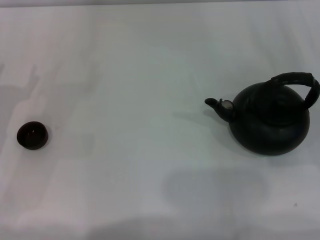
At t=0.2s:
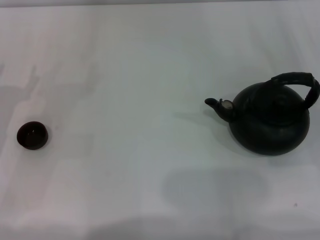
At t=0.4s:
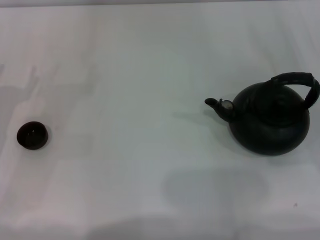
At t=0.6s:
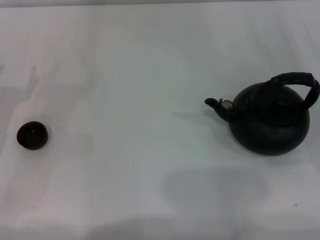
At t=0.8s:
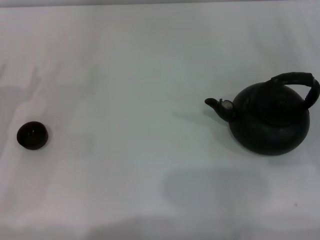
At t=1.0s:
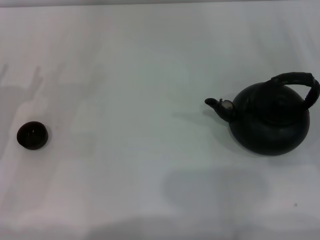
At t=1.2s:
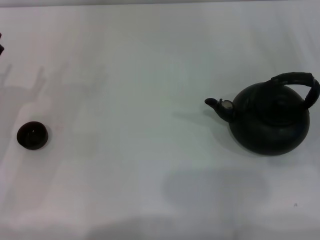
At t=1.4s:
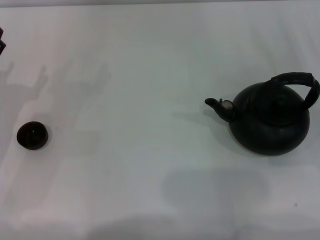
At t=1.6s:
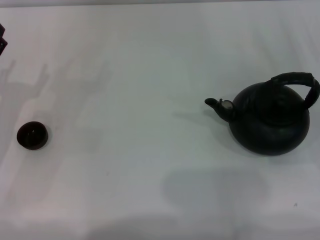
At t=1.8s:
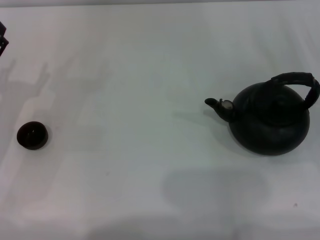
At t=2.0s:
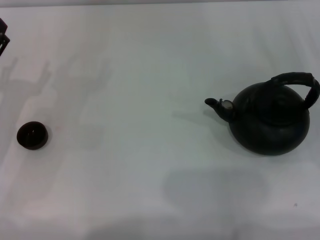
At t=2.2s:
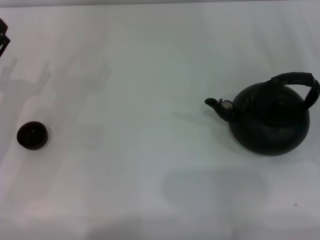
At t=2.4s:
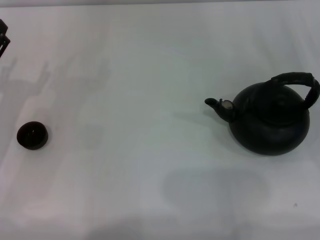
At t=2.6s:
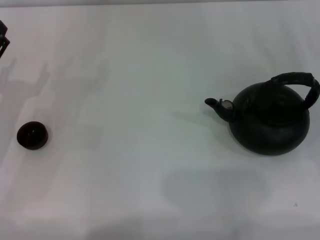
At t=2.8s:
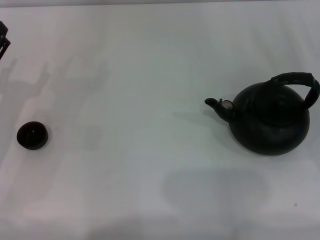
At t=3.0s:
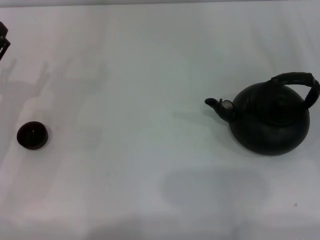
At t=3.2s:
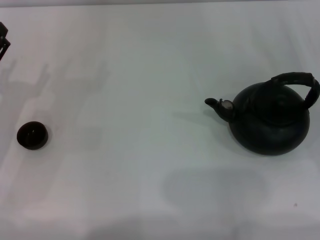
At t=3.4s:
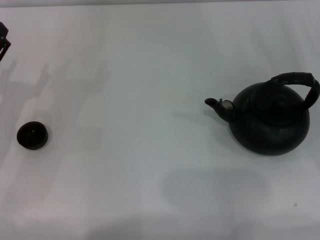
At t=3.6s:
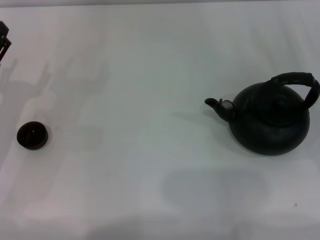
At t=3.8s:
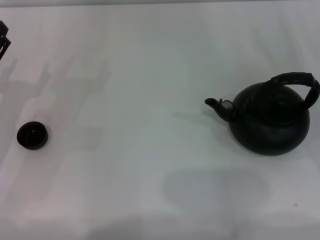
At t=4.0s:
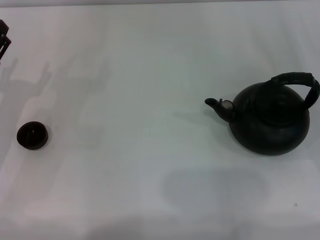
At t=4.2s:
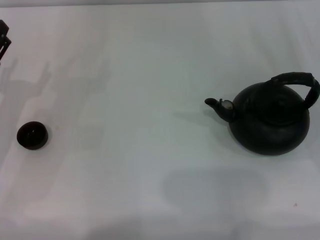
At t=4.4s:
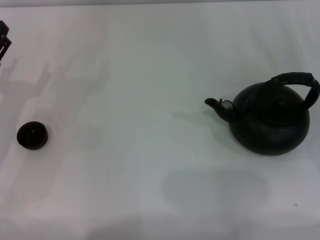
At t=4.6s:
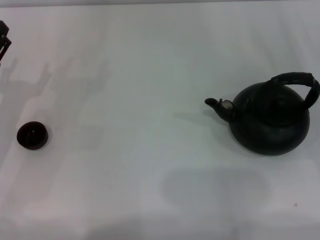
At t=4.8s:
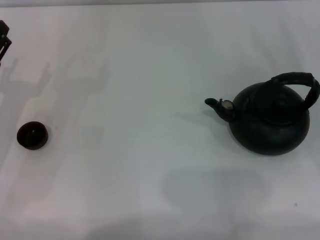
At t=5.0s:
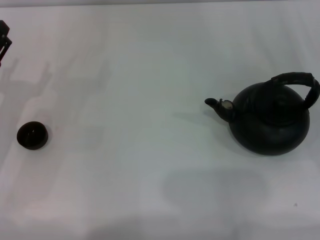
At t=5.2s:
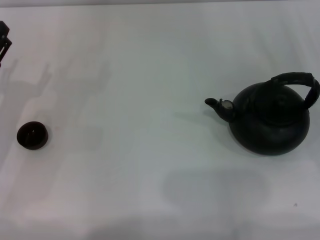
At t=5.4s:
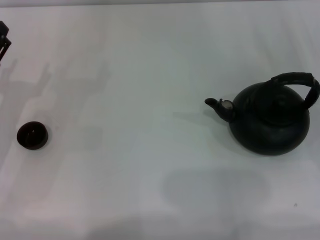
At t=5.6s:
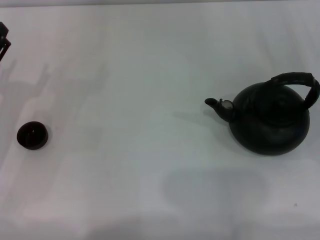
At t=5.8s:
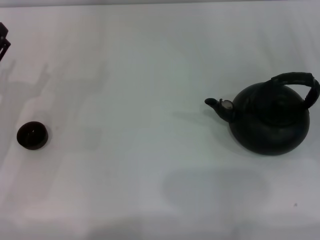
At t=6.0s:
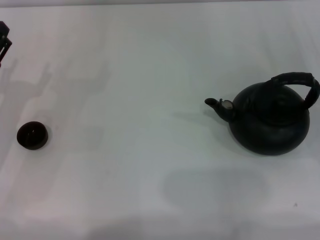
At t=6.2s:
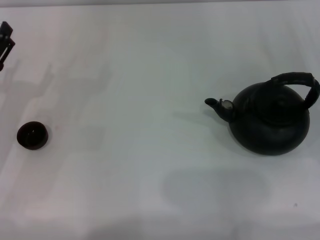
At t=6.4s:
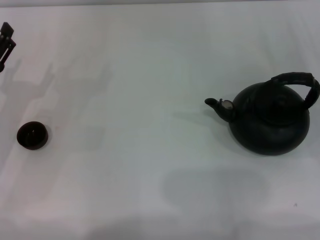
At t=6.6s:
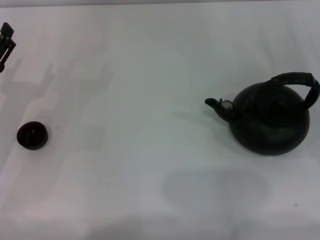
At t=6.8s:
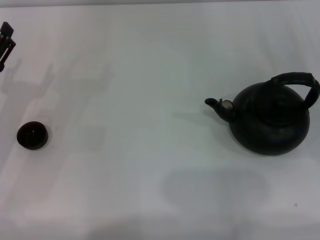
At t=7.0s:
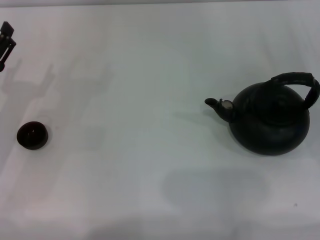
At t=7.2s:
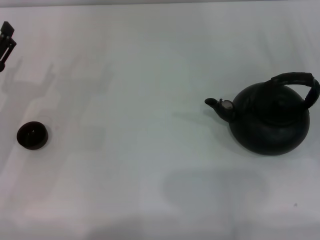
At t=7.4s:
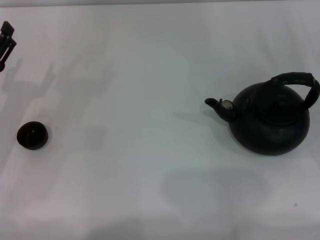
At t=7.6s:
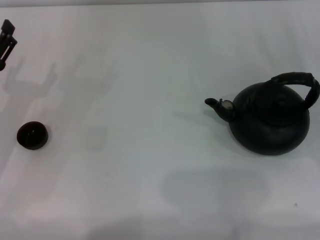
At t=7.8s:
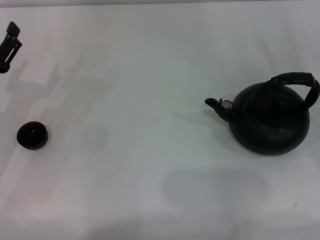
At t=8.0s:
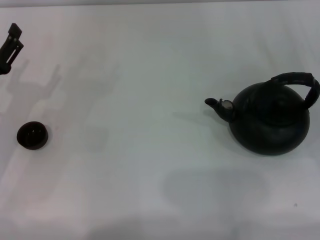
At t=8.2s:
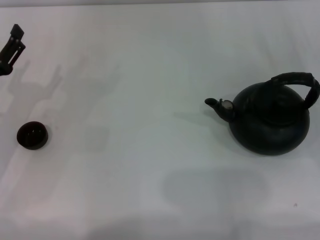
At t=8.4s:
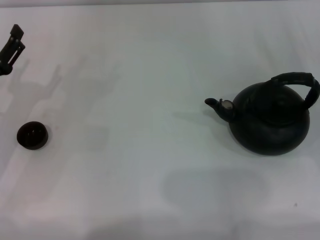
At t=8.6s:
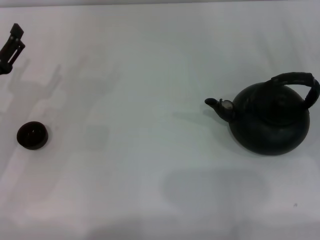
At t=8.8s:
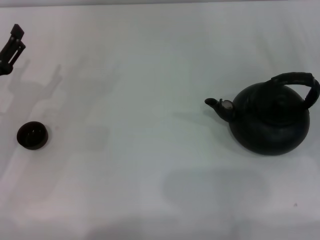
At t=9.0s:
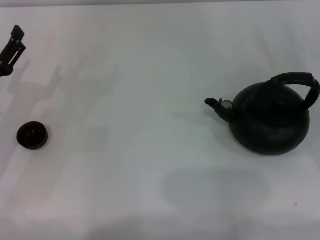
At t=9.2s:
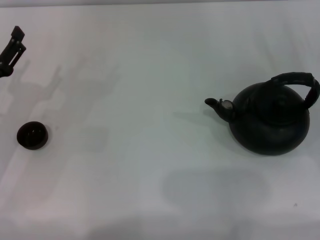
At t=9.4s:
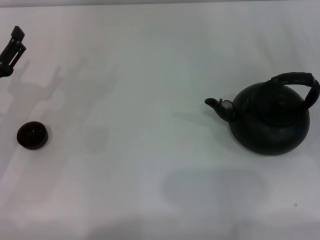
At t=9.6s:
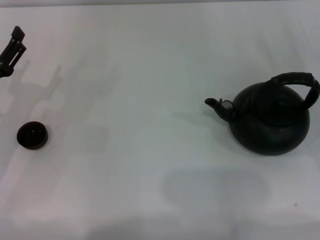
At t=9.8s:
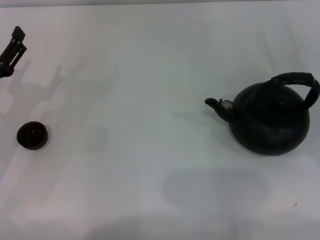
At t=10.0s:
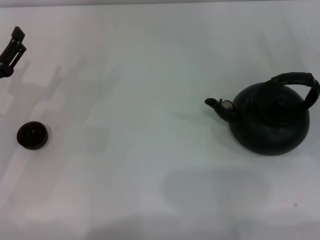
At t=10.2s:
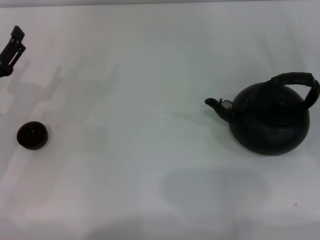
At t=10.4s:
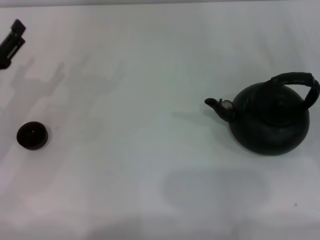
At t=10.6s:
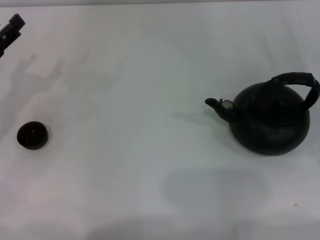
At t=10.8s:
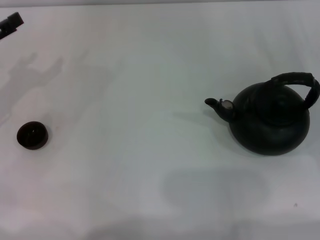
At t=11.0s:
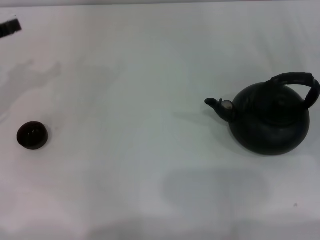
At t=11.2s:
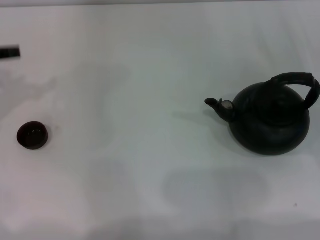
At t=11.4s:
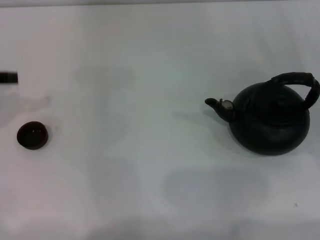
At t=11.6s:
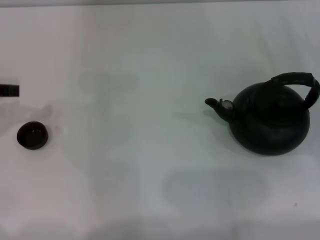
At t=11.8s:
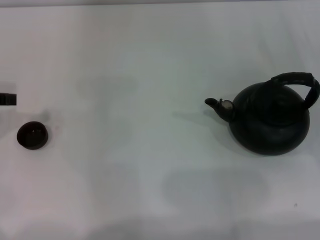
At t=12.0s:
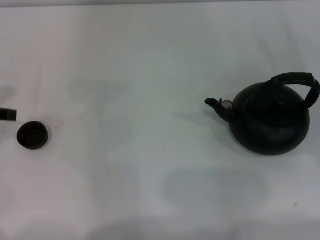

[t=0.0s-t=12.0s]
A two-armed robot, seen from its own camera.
Task of the whole recording: Grasp the handle of the teapot with one hand and pour tea into the teacup.
t=0.0s to t=1.6s: Neither gripper changes place.
t=1.6s to t=9.0s: The two grippers keep their place.
t=10.4s to t=12.0s: The left gripper moves upward, some 15 cm.

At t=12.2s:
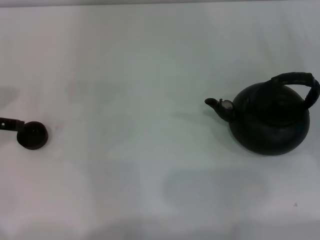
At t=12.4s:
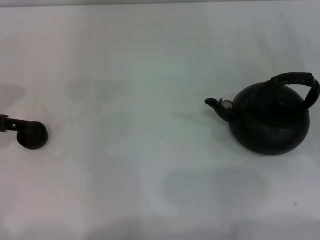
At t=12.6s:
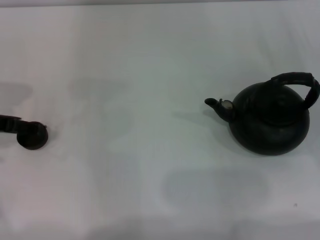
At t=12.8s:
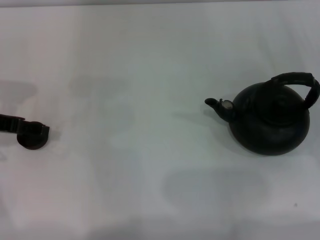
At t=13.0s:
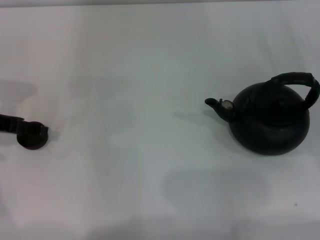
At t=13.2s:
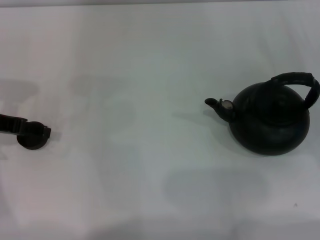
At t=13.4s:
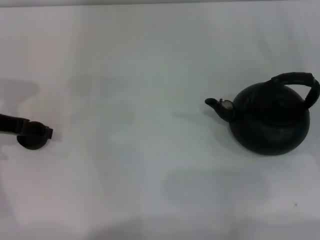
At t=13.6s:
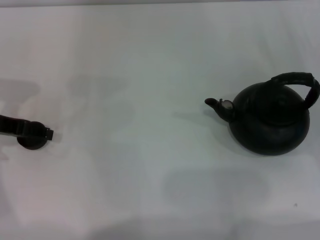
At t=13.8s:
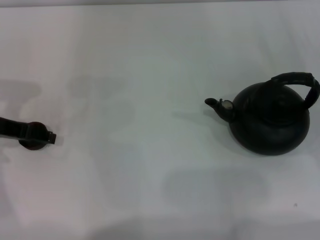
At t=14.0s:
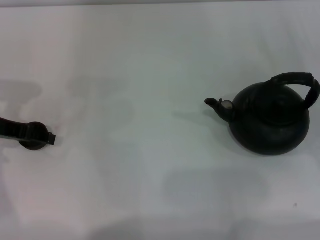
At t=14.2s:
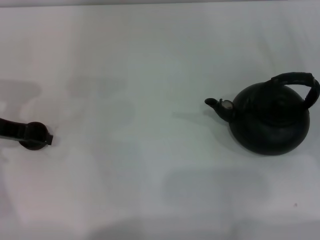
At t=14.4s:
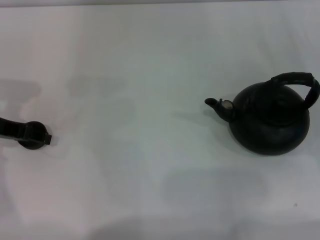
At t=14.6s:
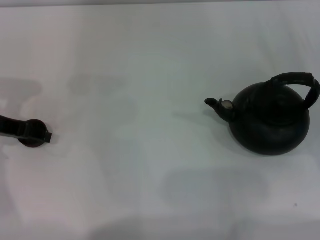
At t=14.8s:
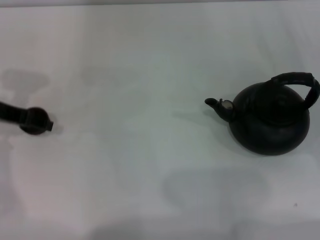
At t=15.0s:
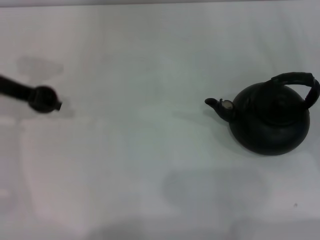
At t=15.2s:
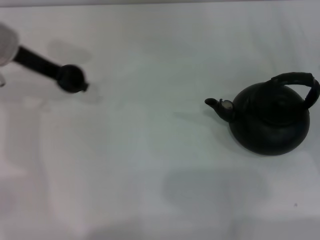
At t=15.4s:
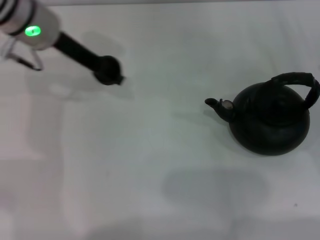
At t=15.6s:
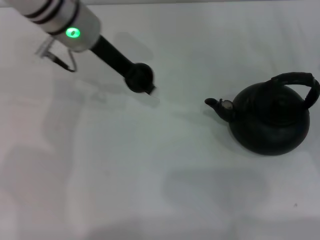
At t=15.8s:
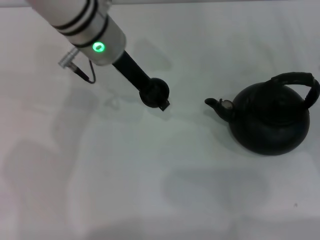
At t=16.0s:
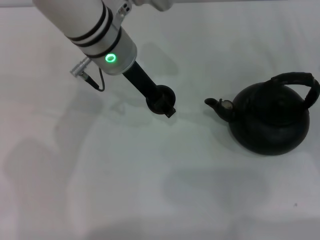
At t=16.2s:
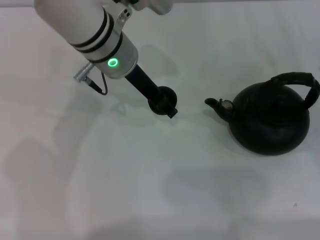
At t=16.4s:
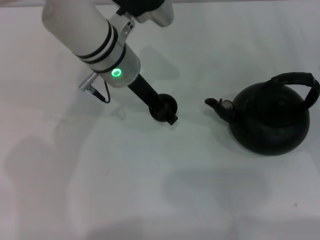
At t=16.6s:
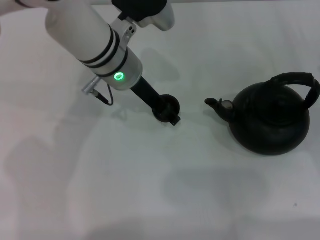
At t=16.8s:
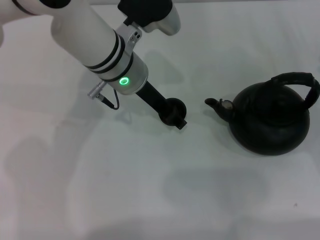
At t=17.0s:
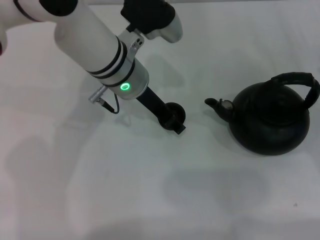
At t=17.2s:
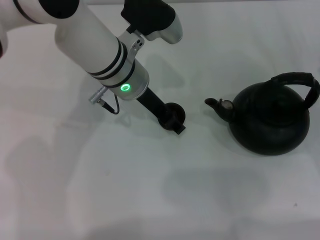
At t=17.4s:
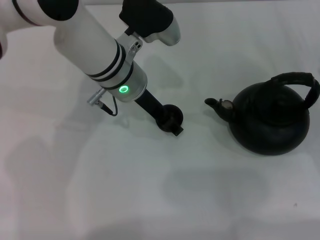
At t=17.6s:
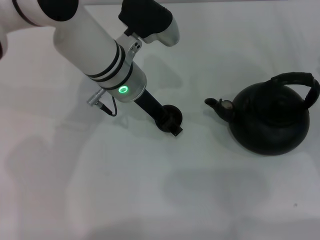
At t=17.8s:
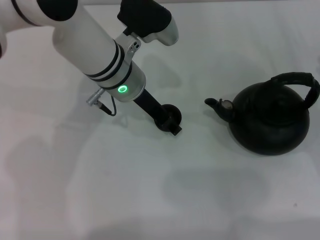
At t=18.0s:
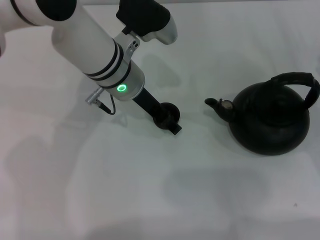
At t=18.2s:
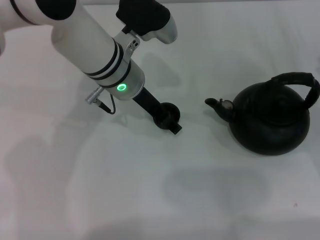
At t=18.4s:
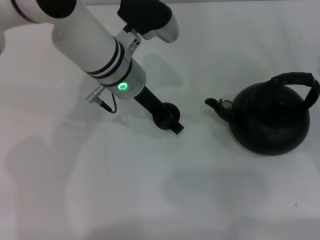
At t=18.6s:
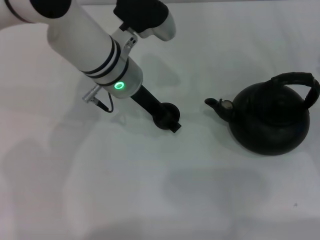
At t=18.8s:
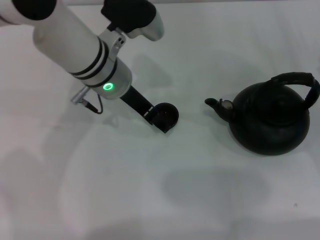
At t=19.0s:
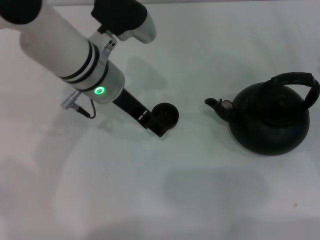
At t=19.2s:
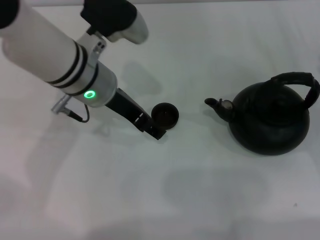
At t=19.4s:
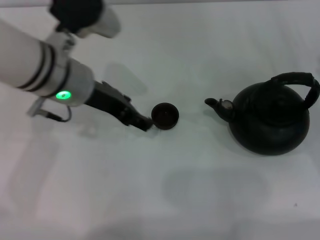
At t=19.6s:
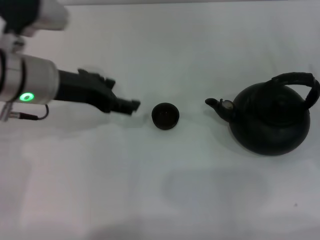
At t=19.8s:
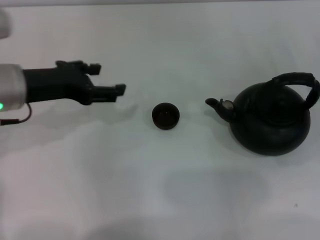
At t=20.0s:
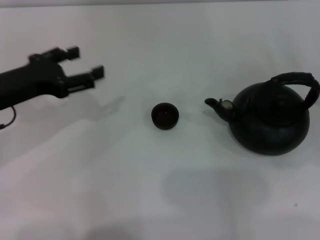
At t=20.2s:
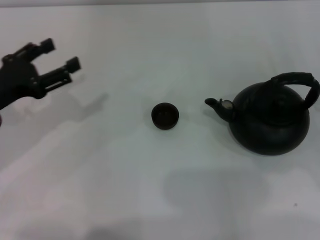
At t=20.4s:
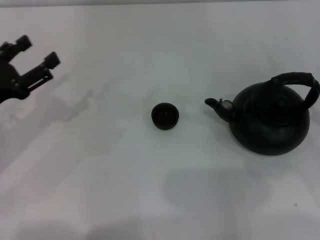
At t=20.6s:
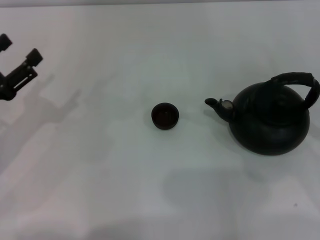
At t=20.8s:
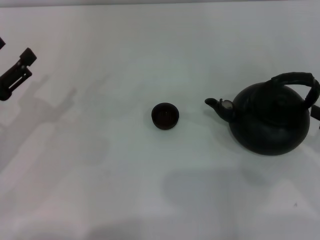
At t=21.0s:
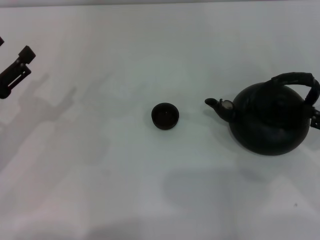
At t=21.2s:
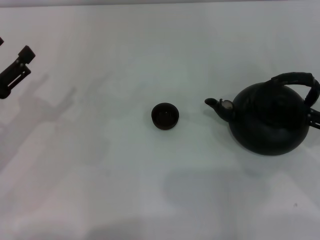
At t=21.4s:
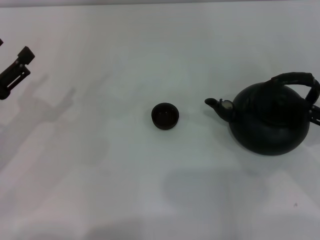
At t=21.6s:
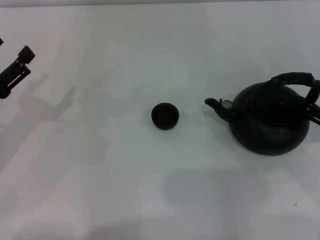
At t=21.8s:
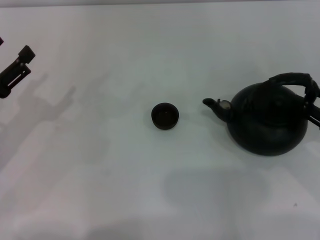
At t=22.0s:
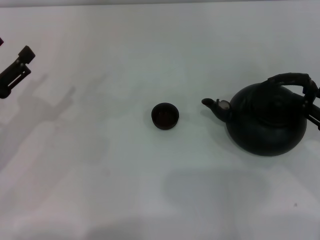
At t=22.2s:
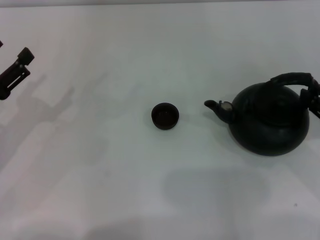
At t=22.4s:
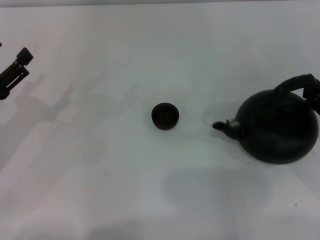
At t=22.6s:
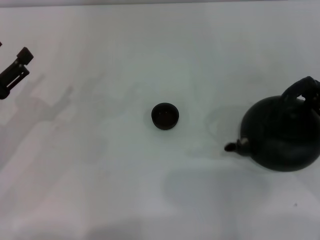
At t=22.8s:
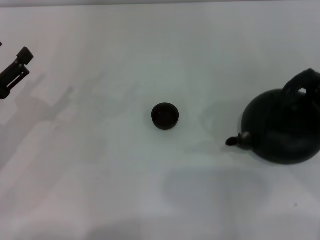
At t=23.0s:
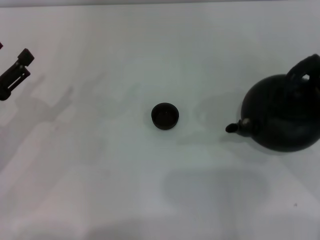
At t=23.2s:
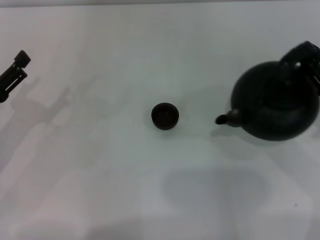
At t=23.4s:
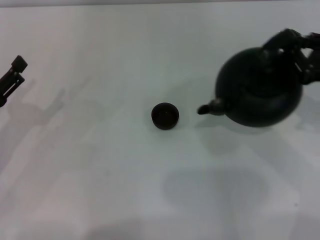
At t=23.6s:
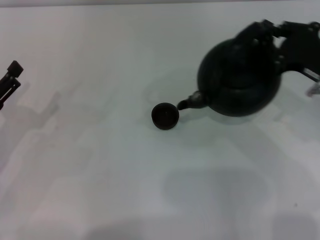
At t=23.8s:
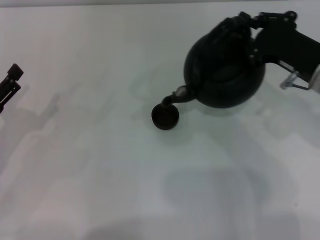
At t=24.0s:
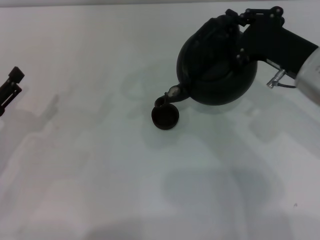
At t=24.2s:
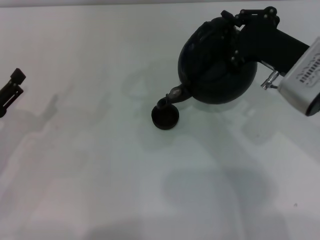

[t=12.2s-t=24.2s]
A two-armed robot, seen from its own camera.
Task of the whole recording: Grasp the handle of the teapot with one hand and pour tea into the teacup.
Step, t=12.2s to t=15.0s: Pick up the teacup with the left gripper.
Step, t=15.2s to t=19.4s: Place the teacup in the center of view with the left gripper.
Step, t=19.6s to t=23.4s: Pick up the teapot with the right gripper.
t=12.2s to t=13.8s: The left gripper ends up about 5 cm from where it was.
t=13.8s to t=15.2s: The left gripper travels forward, to the right and upward by about 10 cm, and closes its fingers.
t=15.2s to t=16.6s: The left gripper travels to the right by about 15 cm.
t=16.6s to t=18.2s: The left gripper opens.
t=18.2s to t=19.8s: The left gripper travels to the left and backward by about 15 cm, and opens up.
t=19.8s to t=21.2s: The left gripper moves to the left, downward and backward, approximately 15 cm. The right gripper changes place by some 5 cm.
t=21.2s to t=22.6s: The right gripper closes up.
t=22.6s to t=24.2s: The right gripper goes about 15 cm to the left and forward.
